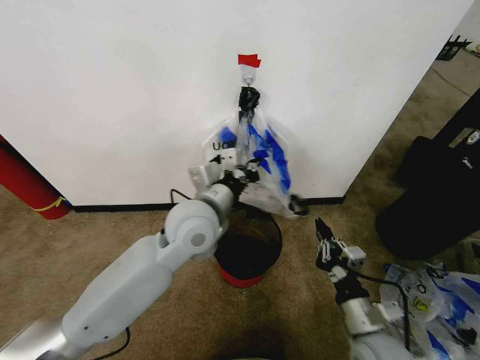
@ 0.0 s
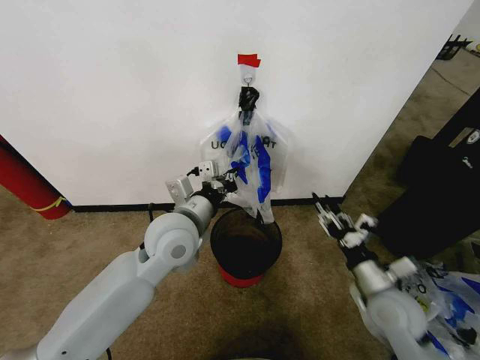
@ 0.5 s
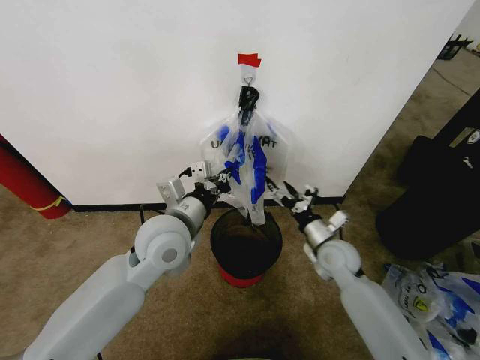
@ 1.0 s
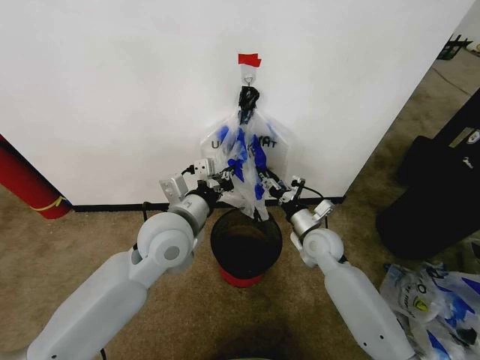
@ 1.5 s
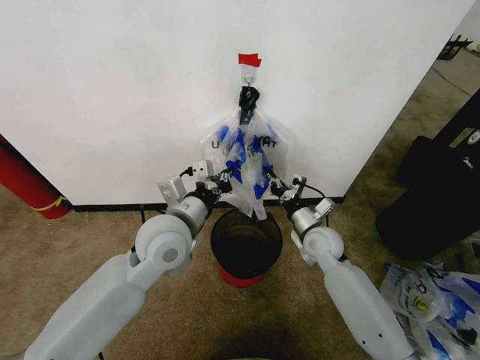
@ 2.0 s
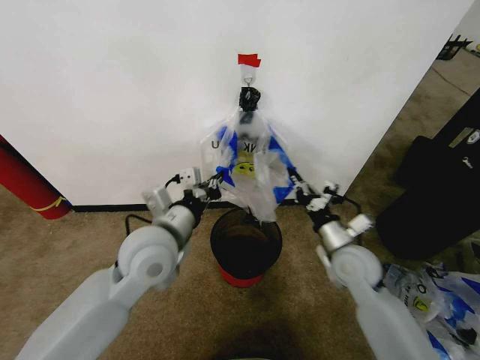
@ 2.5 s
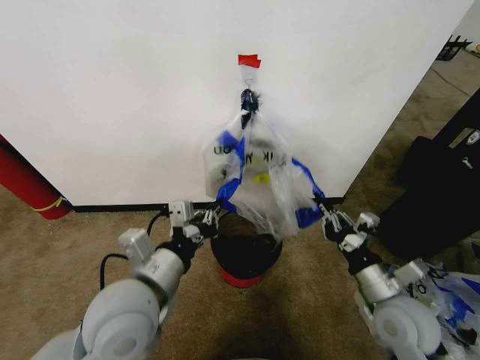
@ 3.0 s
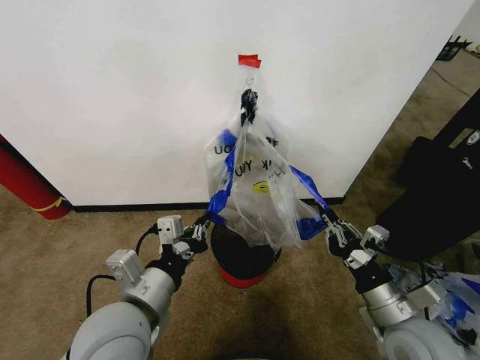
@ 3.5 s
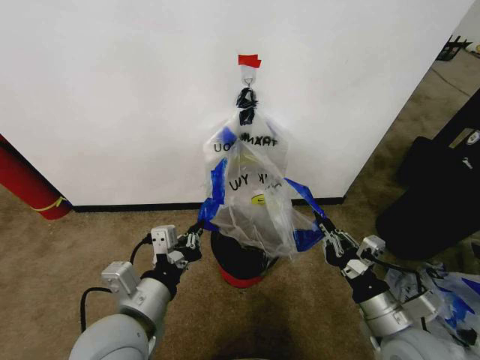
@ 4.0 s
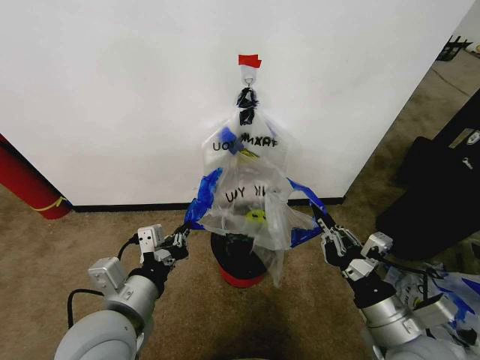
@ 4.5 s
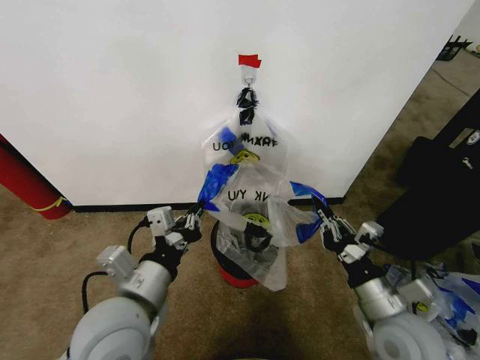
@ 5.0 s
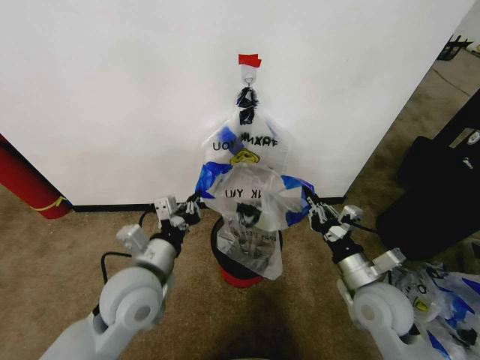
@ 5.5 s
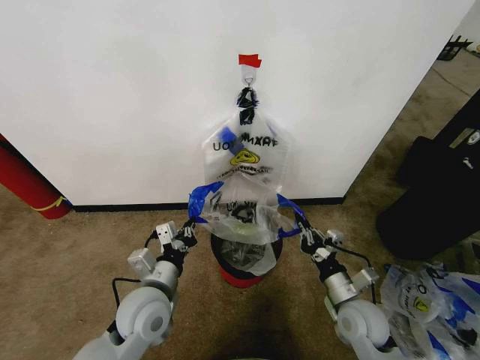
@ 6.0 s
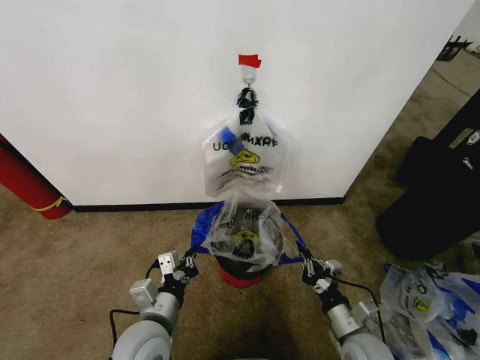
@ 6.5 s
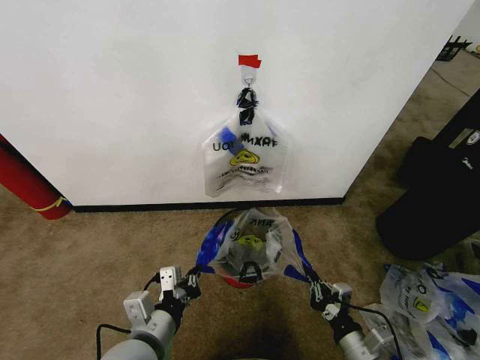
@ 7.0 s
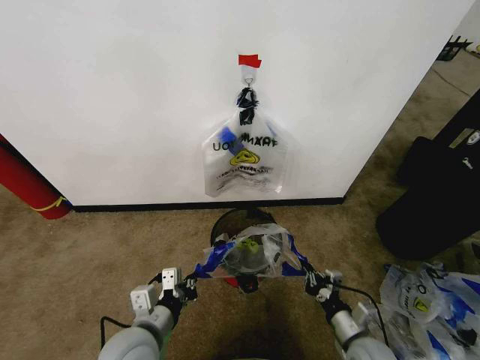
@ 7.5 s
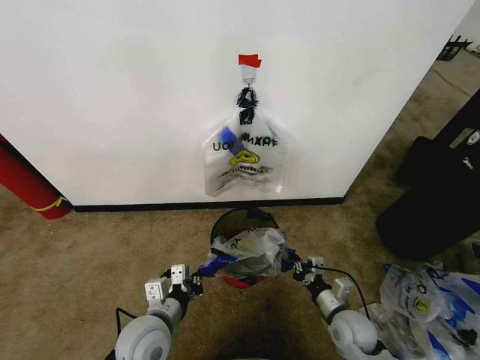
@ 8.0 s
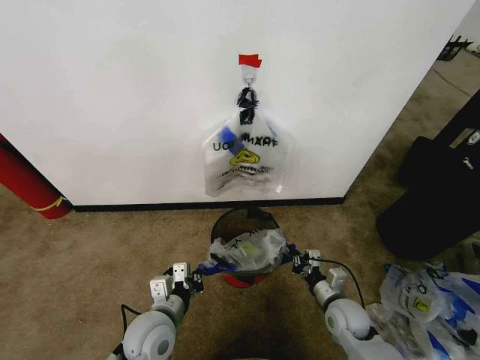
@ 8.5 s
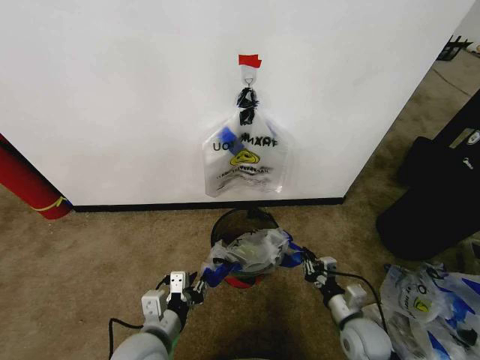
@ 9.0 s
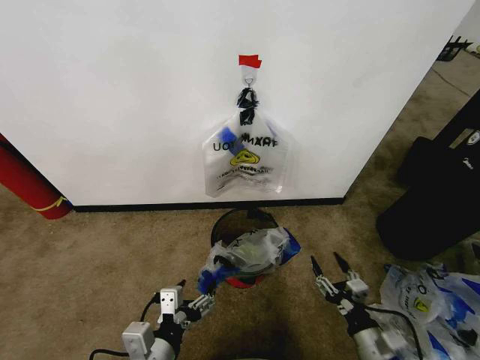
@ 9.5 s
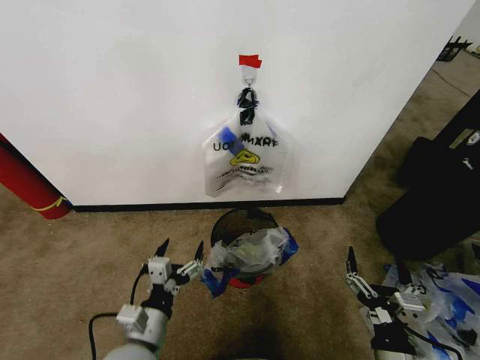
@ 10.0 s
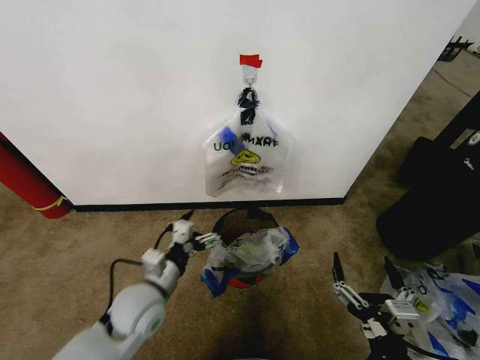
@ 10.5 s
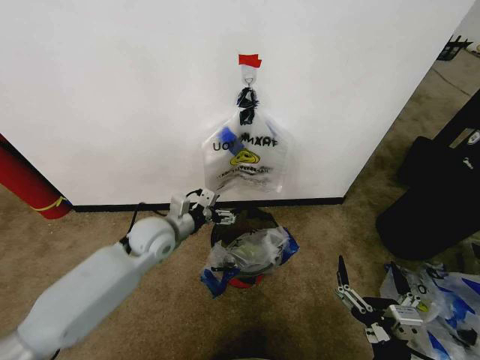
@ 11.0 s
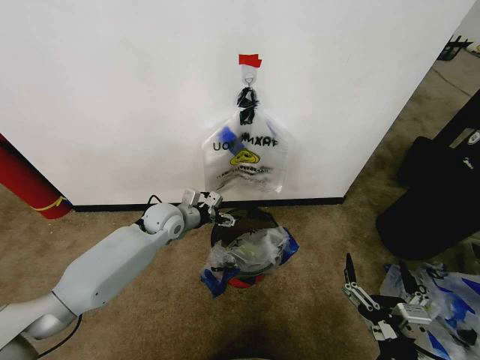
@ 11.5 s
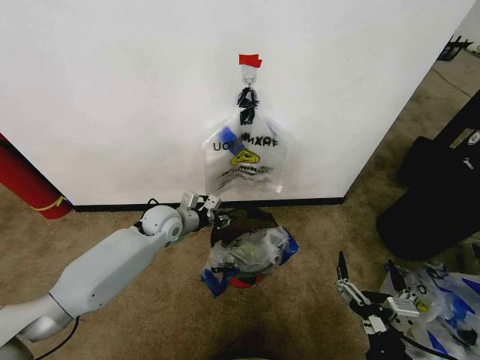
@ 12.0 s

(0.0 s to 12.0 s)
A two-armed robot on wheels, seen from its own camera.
Task of the whole recording: Pick up the garbage bag from the wall and place it over the trash bin.
0.0 s - 2.0 s: The right gripper is displaced forward by about 25 cm, and opens, then closes again.
2.0 s - 4.0 s: The left gripper is displaced backward by some 15 cm. The right gripper moves backward, some 25 cm.
4.0 s - 6.0 s: The grippers both shift downward and forward by some 10 cm.
6.0 s - 8.0 s: The right gripper is displaced downward by approximately 5 cm, and travels backward and back again, roughly 10 cm each way.
8.0 s - 10.0 s: The left gripper opens; the right gripper heads backward and upward, covering some 20 cm, and opens.
10.0 s - 12.0 s: The left gripper goes some 30 cm forward, and closes.

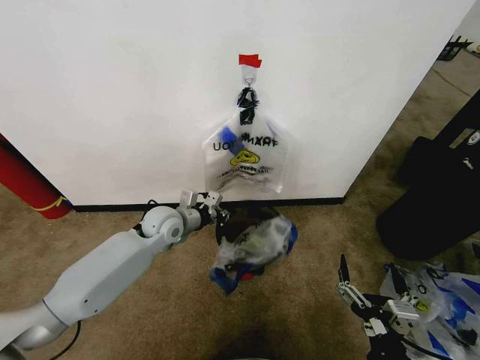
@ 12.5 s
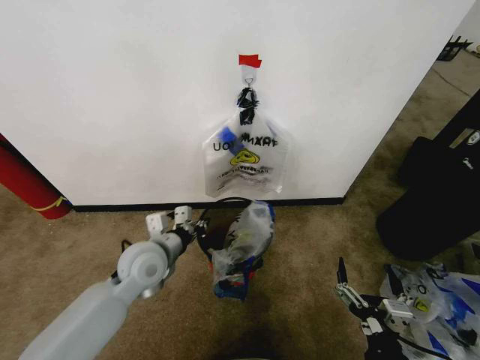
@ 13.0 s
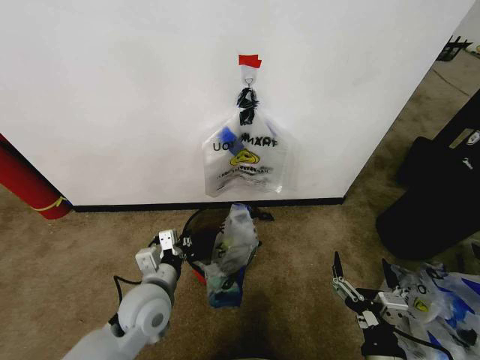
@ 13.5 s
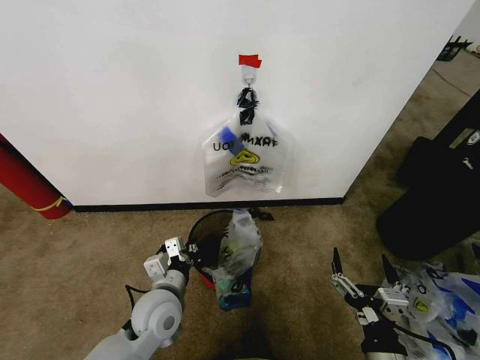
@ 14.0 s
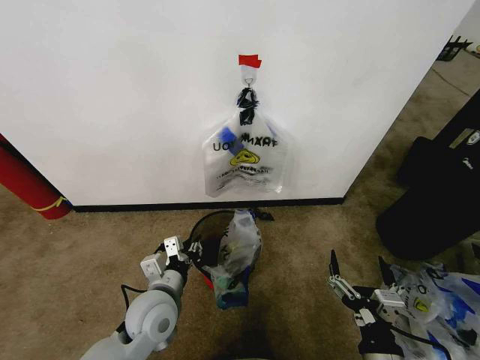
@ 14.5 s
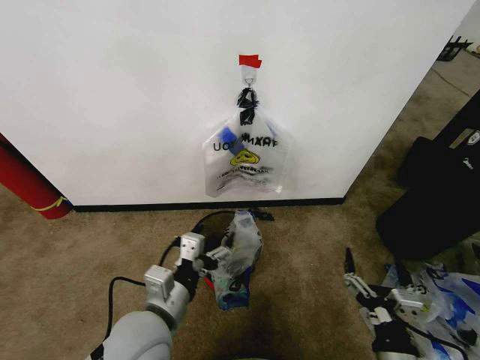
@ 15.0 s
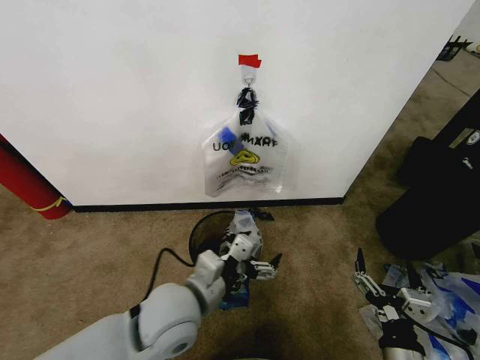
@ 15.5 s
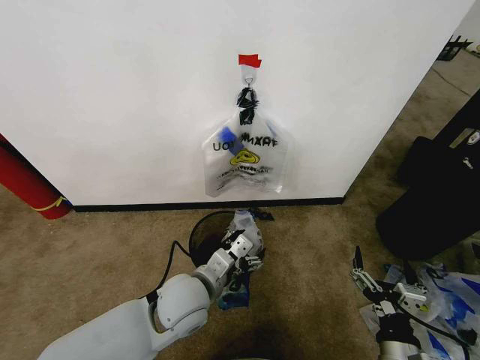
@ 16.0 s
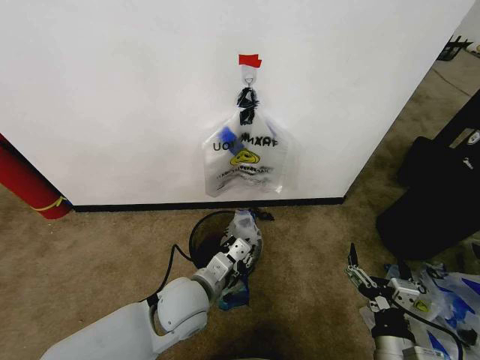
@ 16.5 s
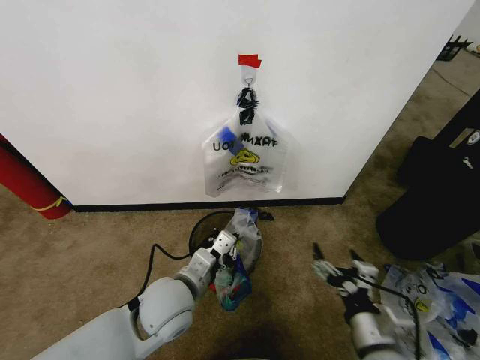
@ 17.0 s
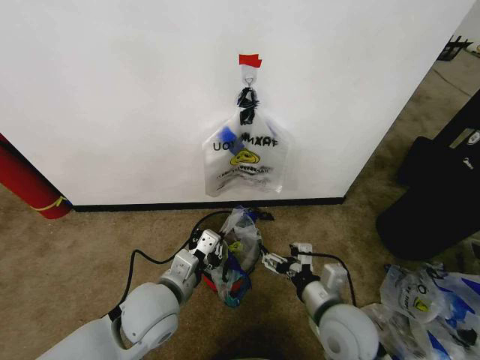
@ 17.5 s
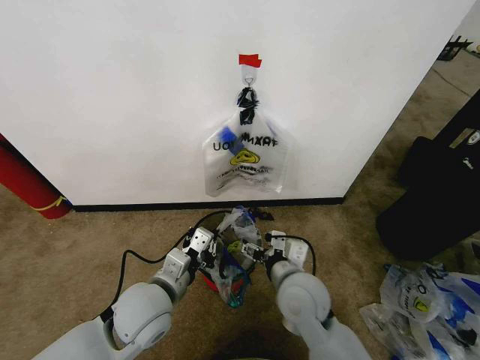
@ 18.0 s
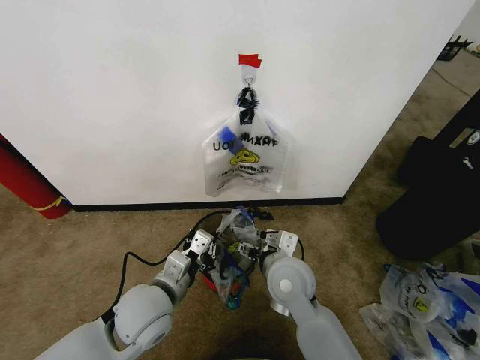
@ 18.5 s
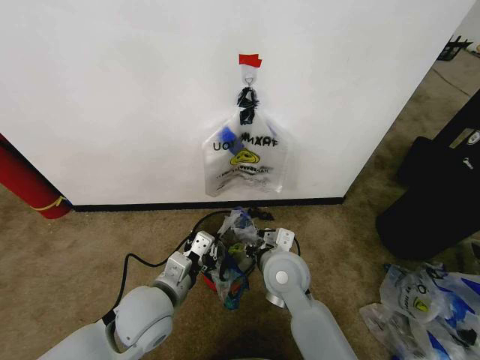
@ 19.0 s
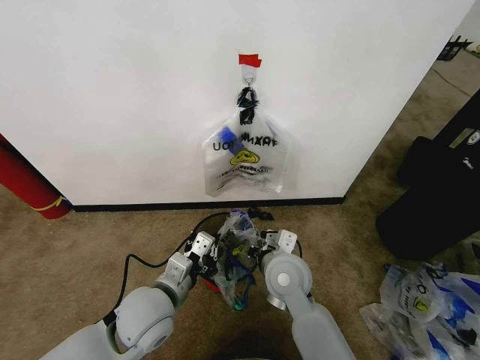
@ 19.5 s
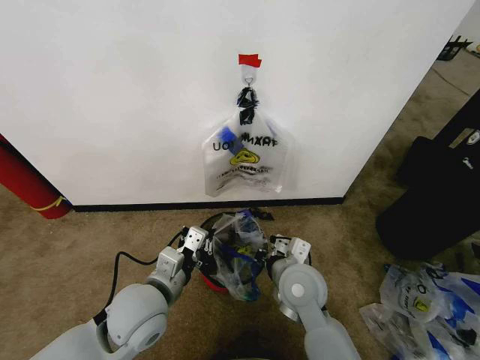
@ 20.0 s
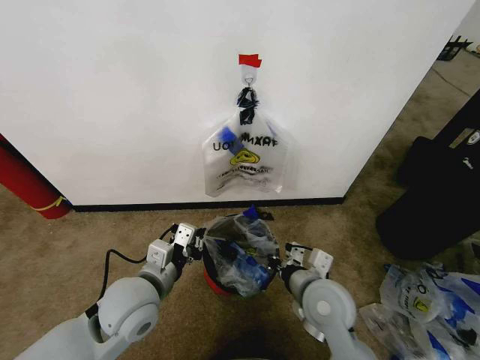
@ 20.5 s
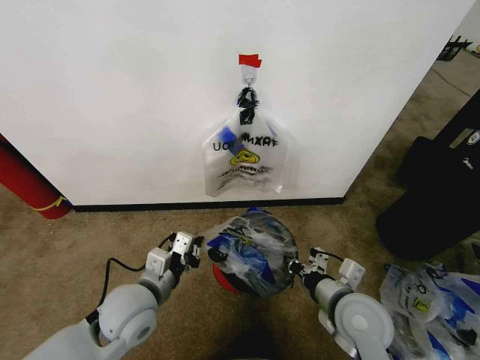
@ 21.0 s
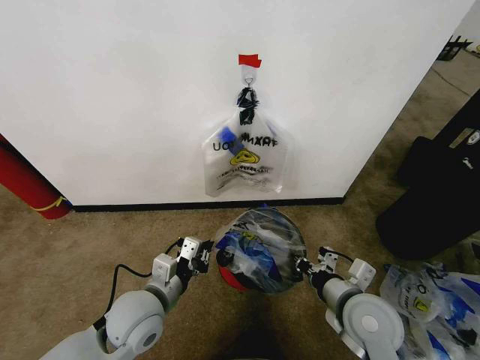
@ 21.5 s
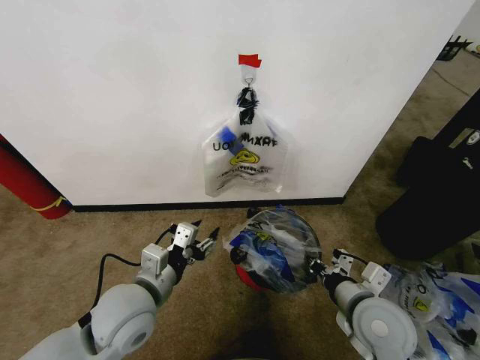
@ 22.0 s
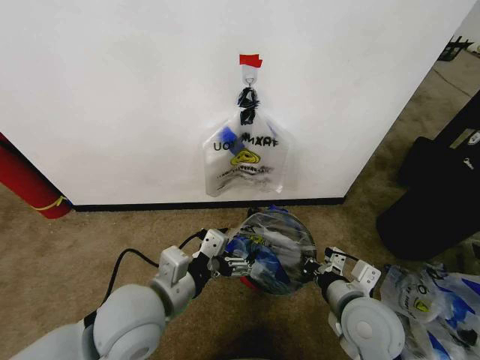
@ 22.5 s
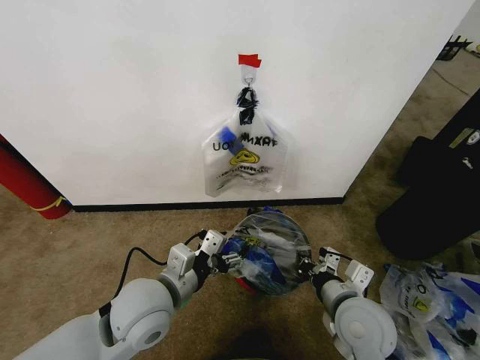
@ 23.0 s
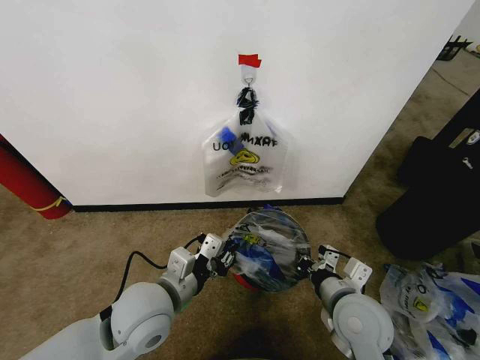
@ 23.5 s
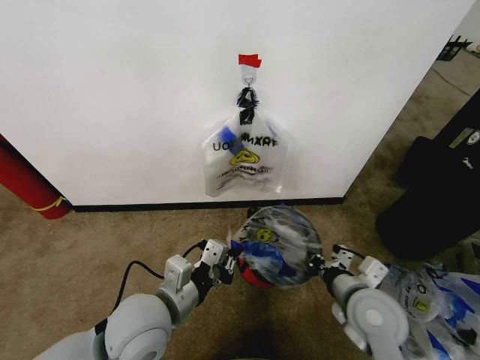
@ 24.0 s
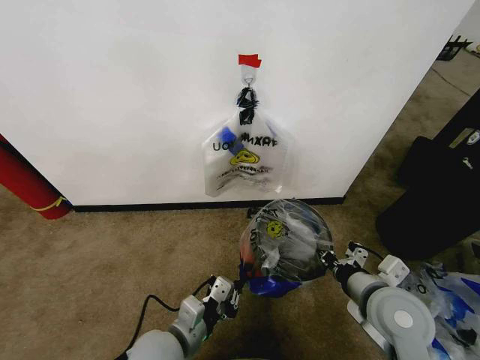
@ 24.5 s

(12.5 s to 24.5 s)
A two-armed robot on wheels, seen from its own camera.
Task of the whole recording: Pick up the garbage bag from the wall and place it over the trash bin.
12.5 s - 14.5 s: The left gripper shifts about 20 cm backward, and opens up.
14.5 s - 16.5 s: The left gripper moves to the right, roughly 5 cm, and opens, then closes once more.
16.5 s - 18.5 s: The right gripper shifts about 25 cm forward and to the left, while the left gripper heads to the left, covering some 5 cm.
18.5 s - 20.5 s: The right gripper travels to the right by some 5 cm, and closes its fingers.
20.5 s - 22.5 s: The left gripper moves about 5 cm, and opens. Meanwhile the right gripper shifts some 5 cm to the right.
22.5 s - 24.5 s: The left gripper is displaced downward by some 10 cm, and closes up.

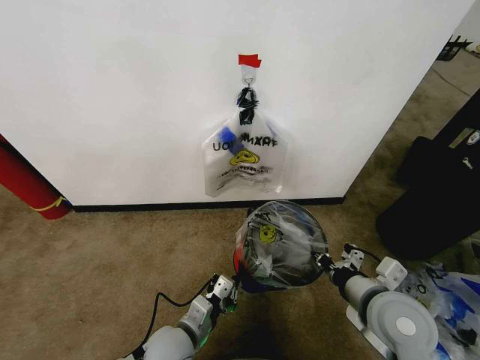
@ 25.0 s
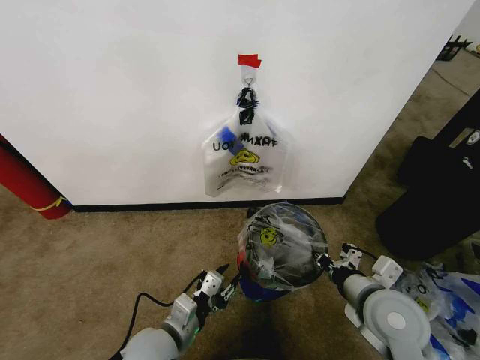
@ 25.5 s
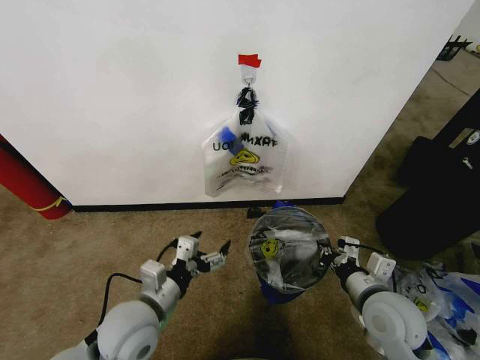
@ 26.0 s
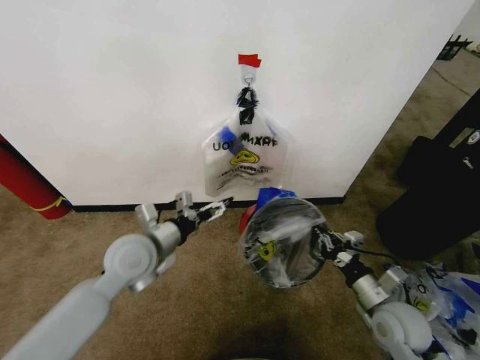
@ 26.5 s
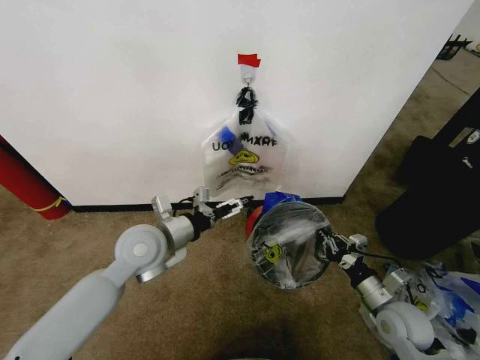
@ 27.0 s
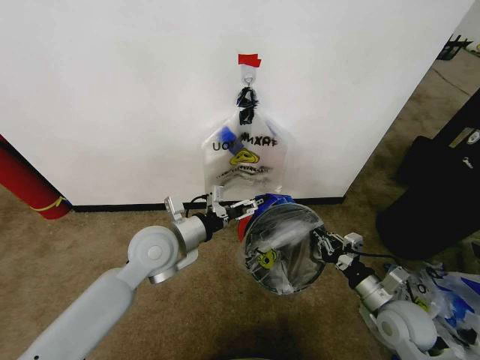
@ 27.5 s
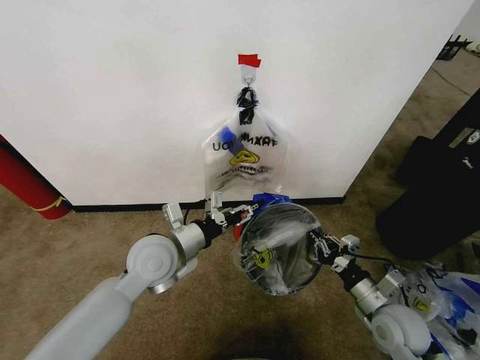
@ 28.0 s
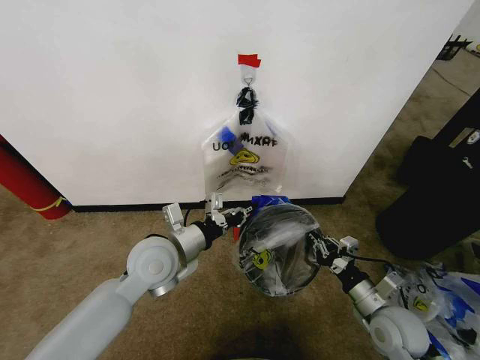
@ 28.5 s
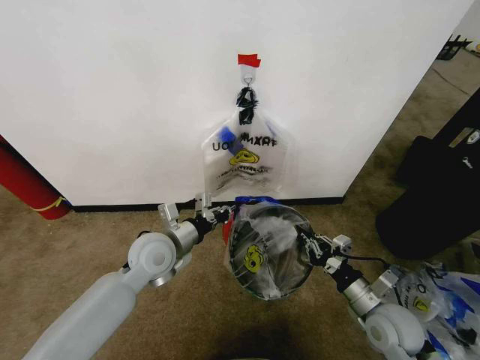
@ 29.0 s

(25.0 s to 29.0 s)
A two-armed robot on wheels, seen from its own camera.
Task of the whole recording: Pick up the garbage bag from the wall and place it over the trash bin.
25.0 s - 27.0 s: The left gripper moves upward and forward, some 20 cm, and opens. The right gripper heads downward and to the right, covering some 15 cm.
27.0 s - 29.0 s: The left gripper closes up.
